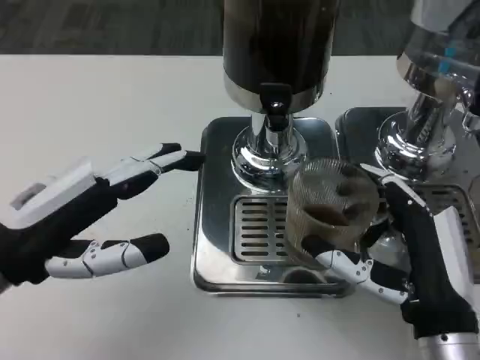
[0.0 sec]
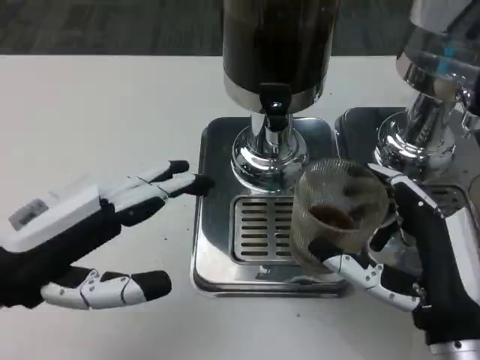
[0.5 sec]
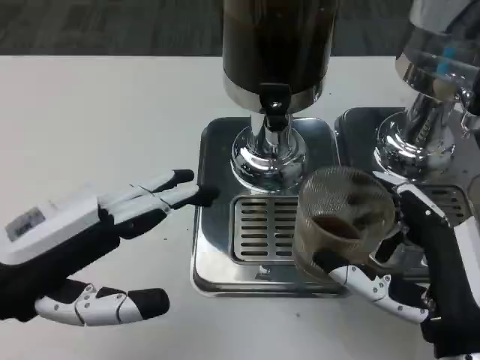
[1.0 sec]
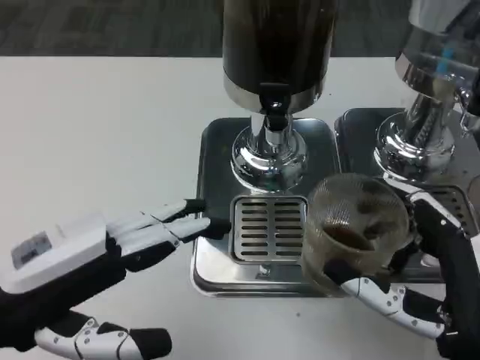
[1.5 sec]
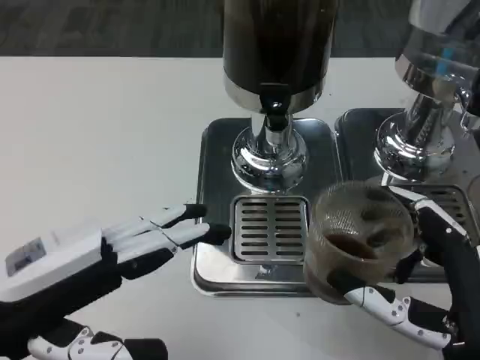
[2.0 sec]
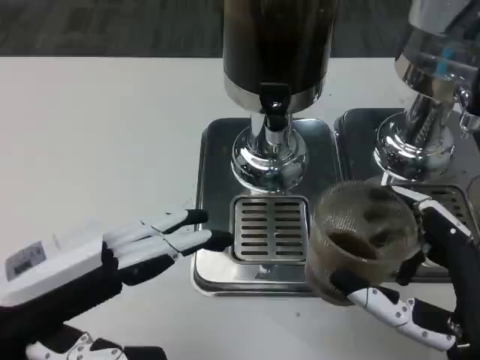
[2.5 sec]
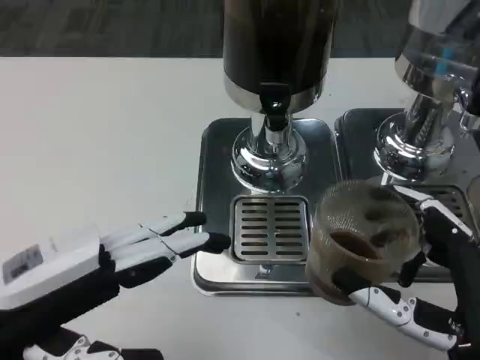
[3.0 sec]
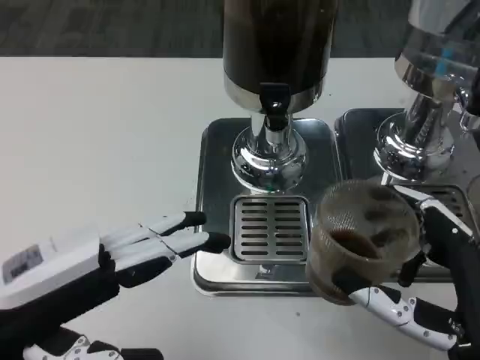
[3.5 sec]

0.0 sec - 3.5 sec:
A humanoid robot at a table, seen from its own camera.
Task of the whole recording: Grasp the cup under the faucet to collect the drink, then remove the cup.
0.0 sec - 2.0 sec: The right hand changes place by approximately 5 cm.
2.0 sec - 3.5 sec: The two hands keep their place.

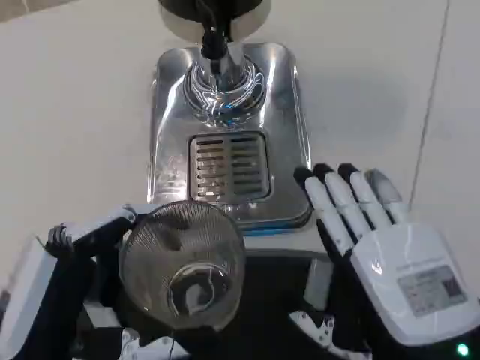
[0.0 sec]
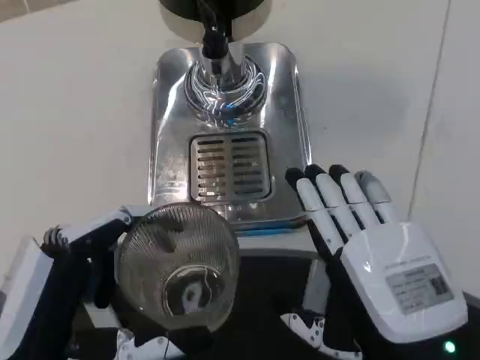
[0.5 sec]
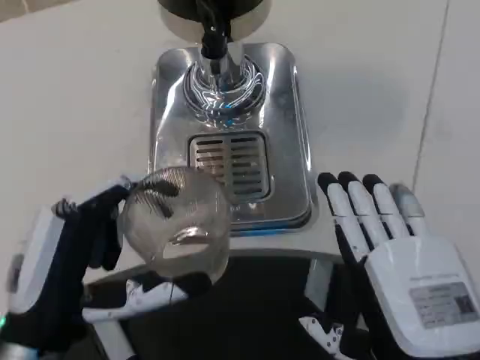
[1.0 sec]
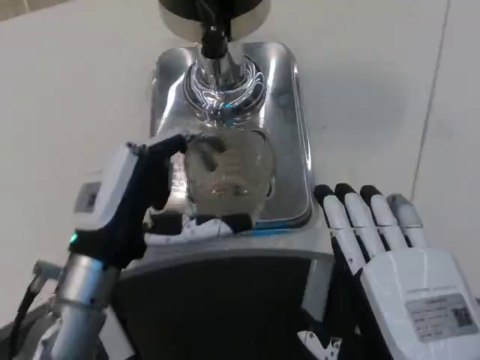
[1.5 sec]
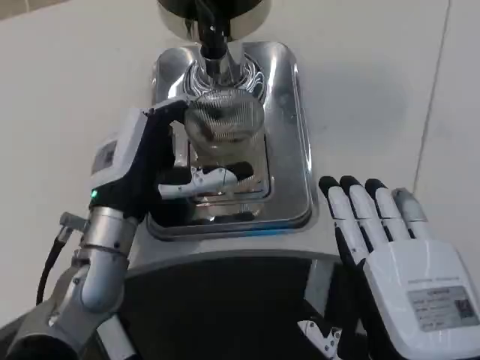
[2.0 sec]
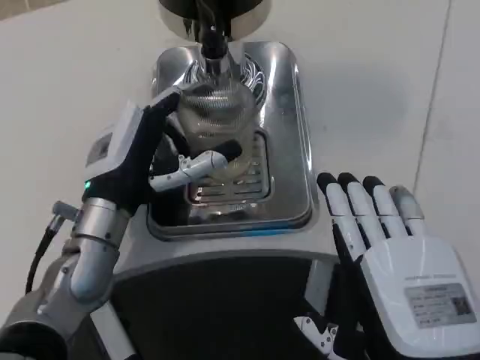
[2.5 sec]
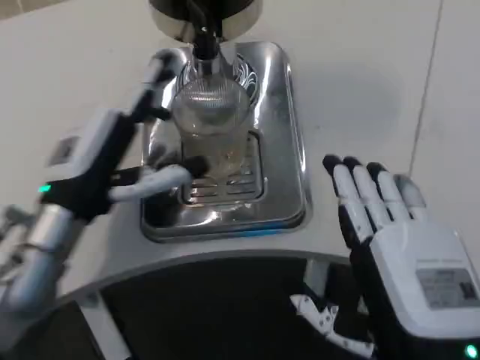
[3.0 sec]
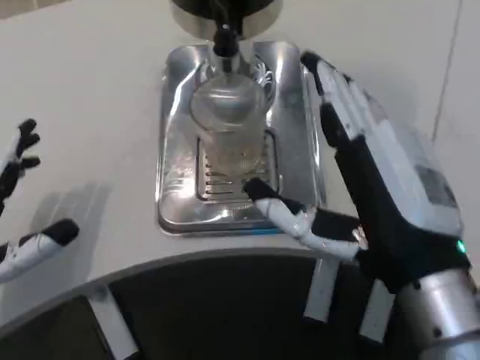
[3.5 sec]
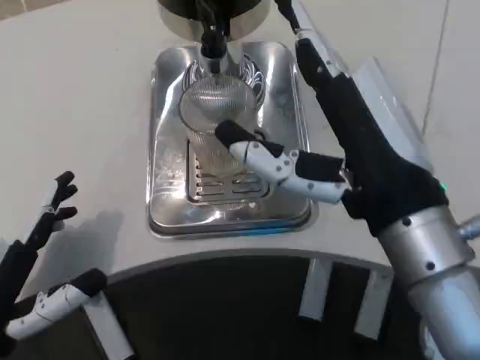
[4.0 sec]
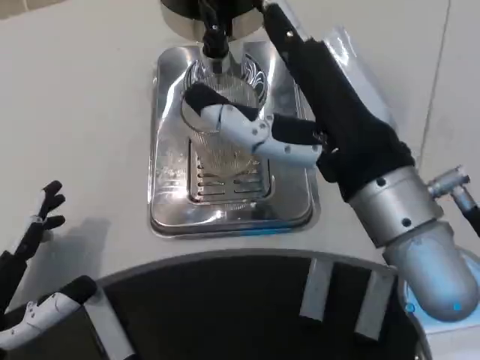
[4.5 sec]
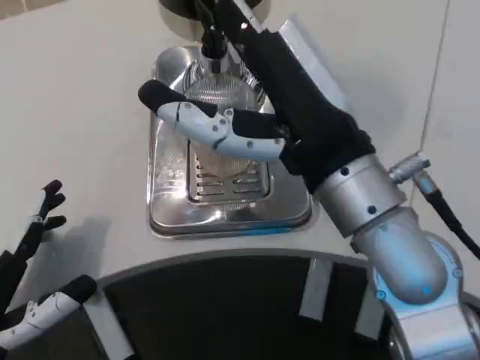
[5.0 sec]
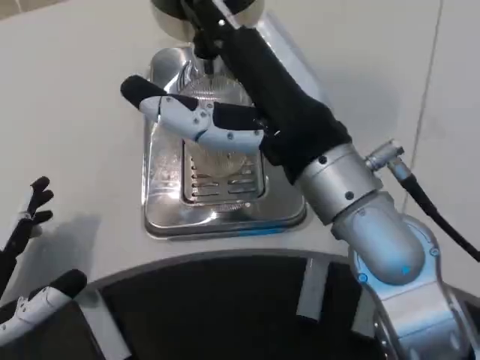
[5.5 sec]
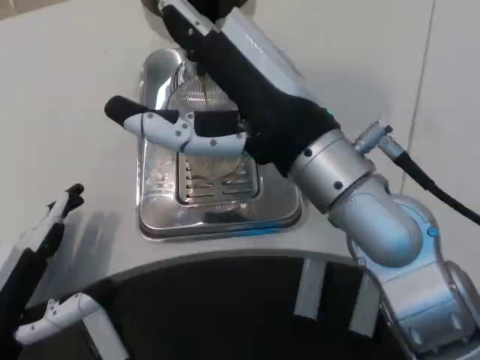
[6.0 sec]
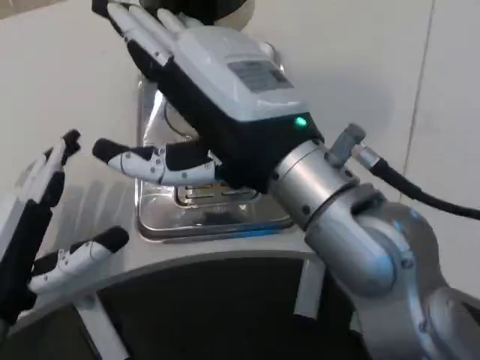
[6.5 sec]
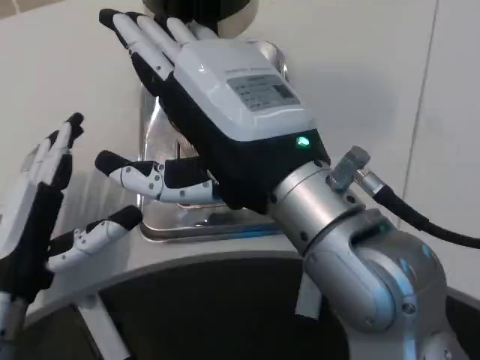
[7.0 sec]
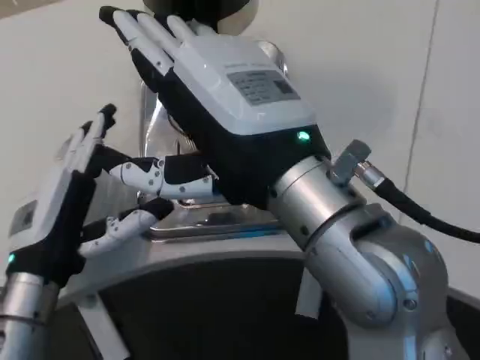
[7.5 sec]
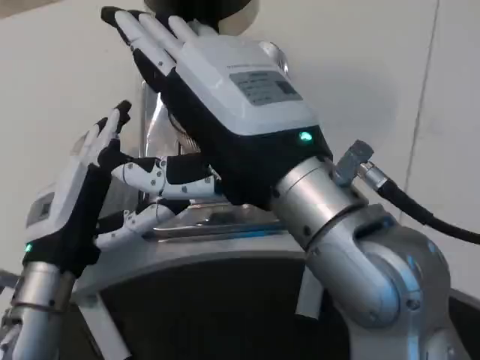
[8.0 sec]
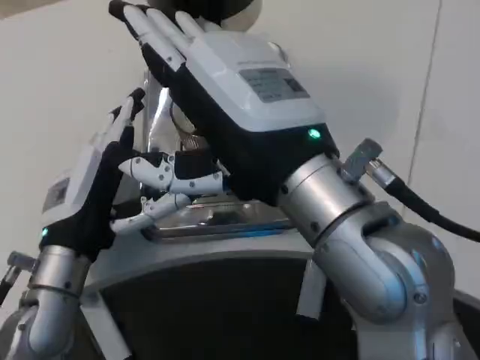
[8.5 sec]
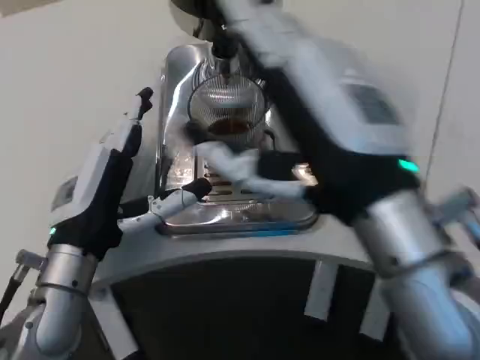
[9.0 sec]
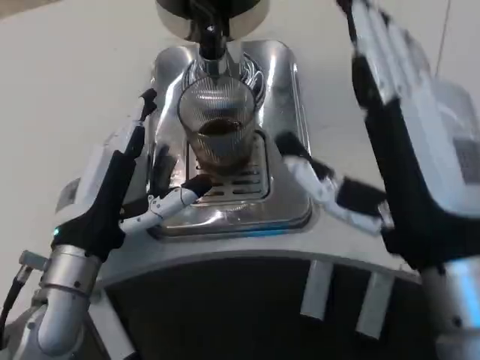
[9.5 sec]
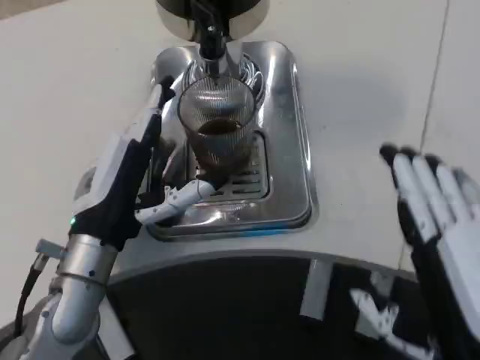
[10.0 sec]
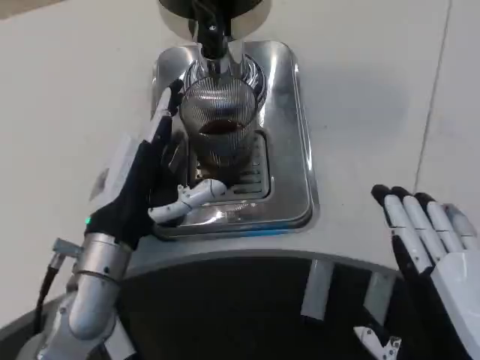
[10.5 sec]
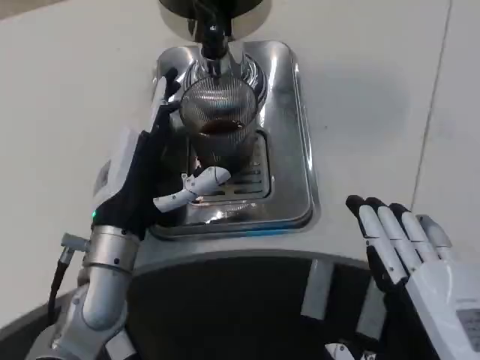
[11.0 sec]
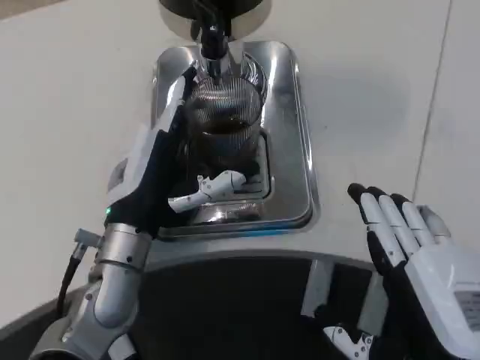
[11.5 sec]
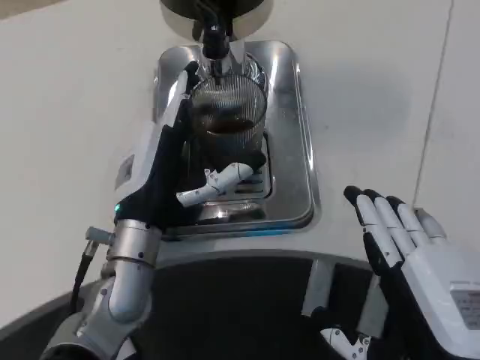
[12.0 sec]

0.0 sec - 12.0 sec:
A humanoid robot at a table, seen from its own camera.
Task of the whole recording: Grasp the cup under the faucet to collect the drink, then remove the cup.
0.0 sec - 2.0 sec: The left hand travels forward by approximately 15 cm.
2.0 sec - 4.0 sec: The right hand shifts approximately 10 cm upward and forward; the left hand goes about 20 cm backward and to the left.
4.0 sec - 6.0 sec: The right hand ends up some 5 cm from where it was.
6.0 sec - 8.0 sec: The right hand moves about 5 cm. Meanwhile the left hand travels forward and to the right by roughly 10 cm.
8.0 sec - 10.0 sec: The right hand goes some 20 cm downward, to the right and backward.
10.0 sec - 12.0 sec: The left hand moves roughly 5 cm.

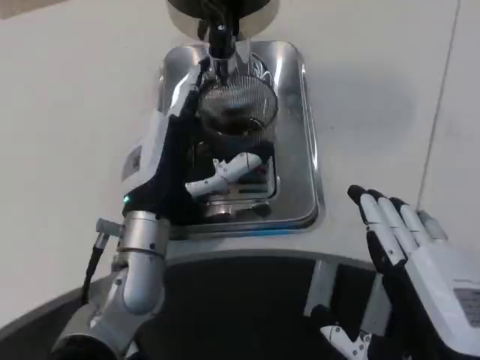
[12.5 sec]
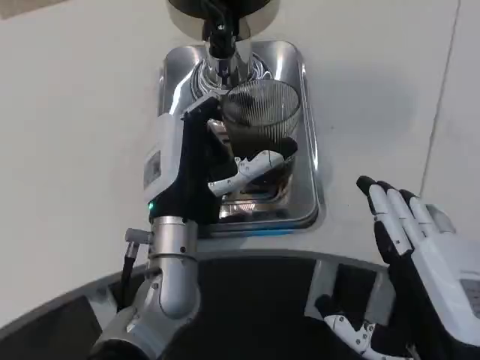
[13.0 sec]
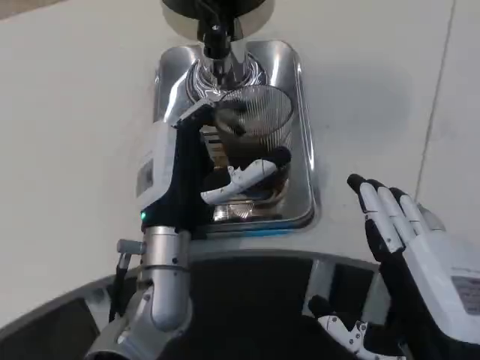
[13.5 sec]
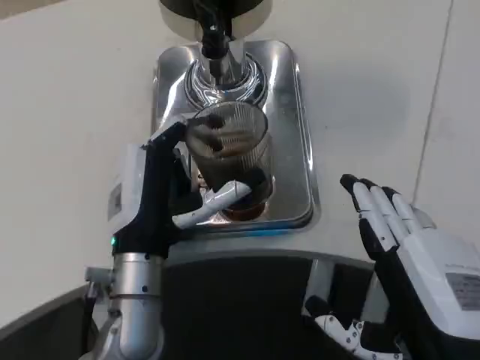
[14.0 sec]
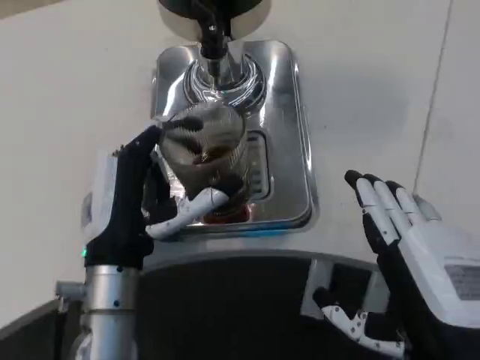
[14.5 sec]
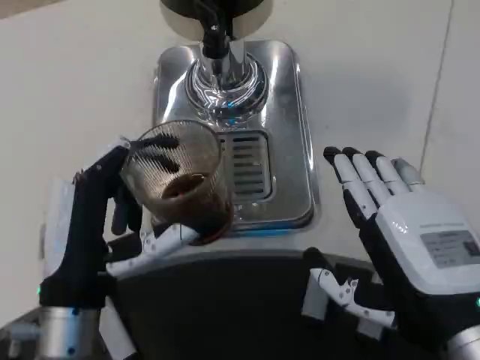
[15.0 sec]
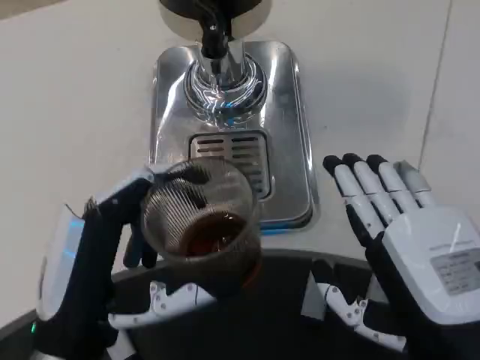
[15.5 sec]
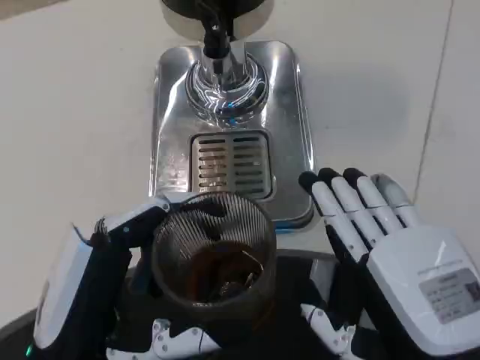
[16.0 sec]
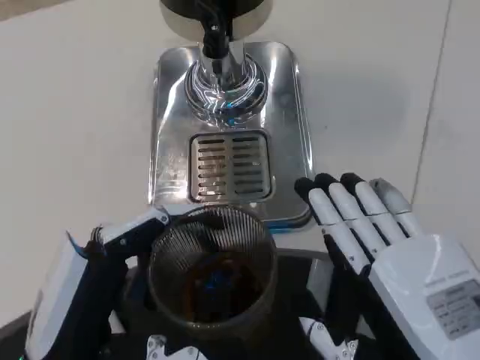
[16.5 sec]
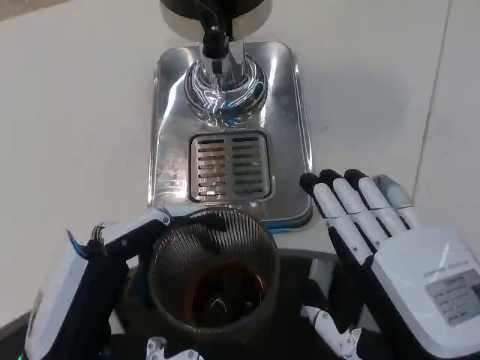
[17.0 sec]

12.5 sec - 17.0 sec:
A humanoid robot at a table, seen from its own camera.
Task of the whole recording: Grasp the cup under the faucet to collect the drink, then remove the cup.
12.5 sec - 14.5 sec: The left hand is displaced backward by approximately 5 cm.
14.5 sec - 17.0 sec: The left hand is displaced backward by approximately 10 cm.

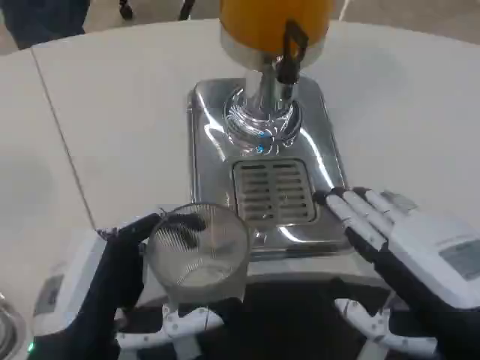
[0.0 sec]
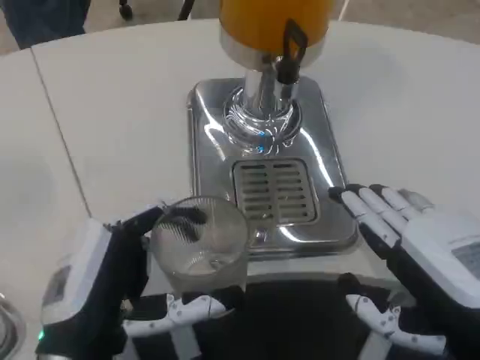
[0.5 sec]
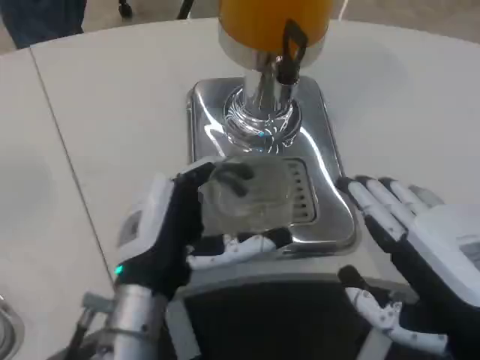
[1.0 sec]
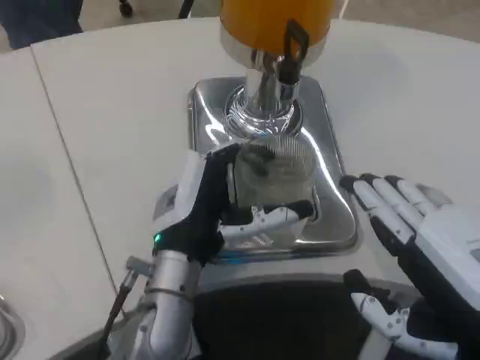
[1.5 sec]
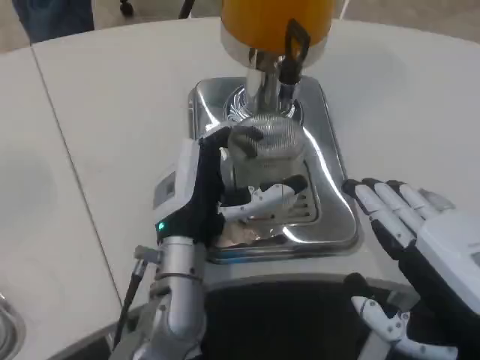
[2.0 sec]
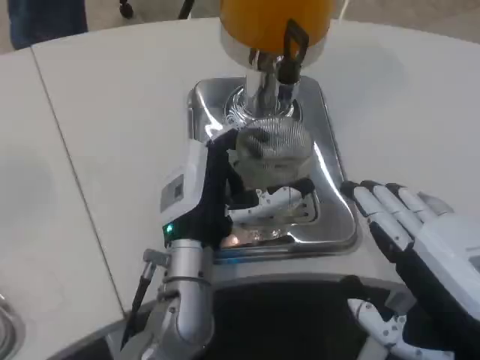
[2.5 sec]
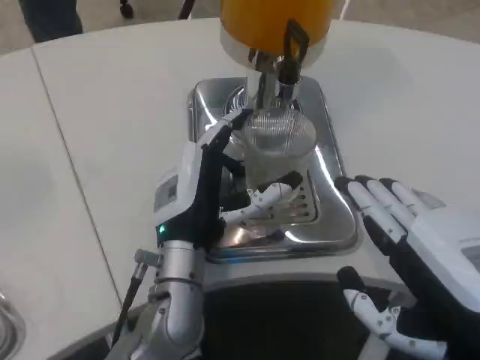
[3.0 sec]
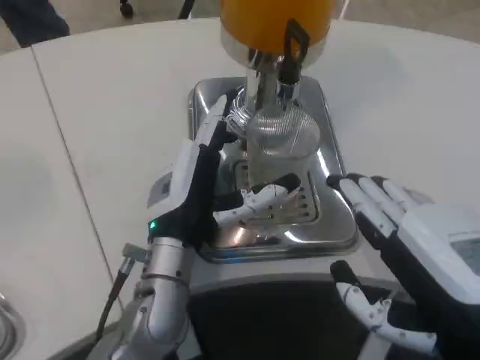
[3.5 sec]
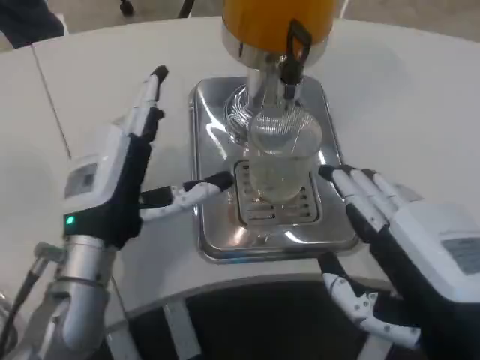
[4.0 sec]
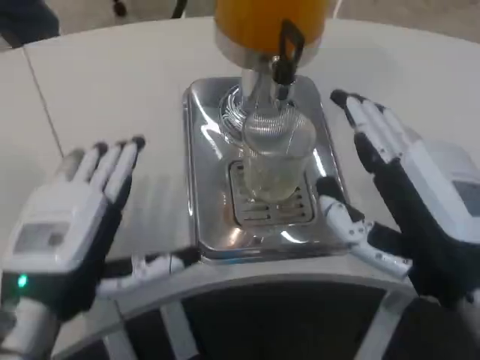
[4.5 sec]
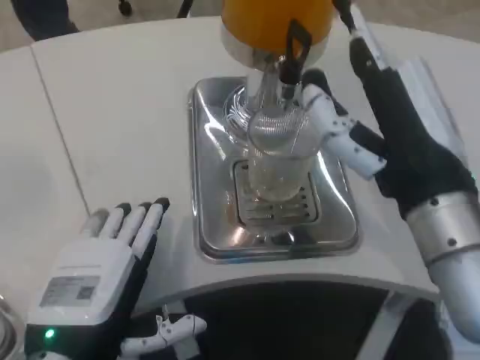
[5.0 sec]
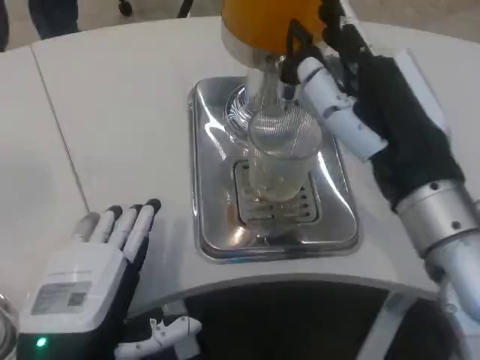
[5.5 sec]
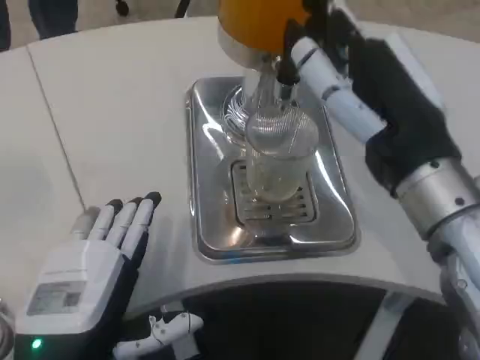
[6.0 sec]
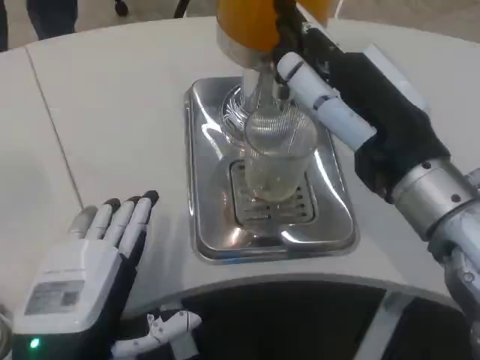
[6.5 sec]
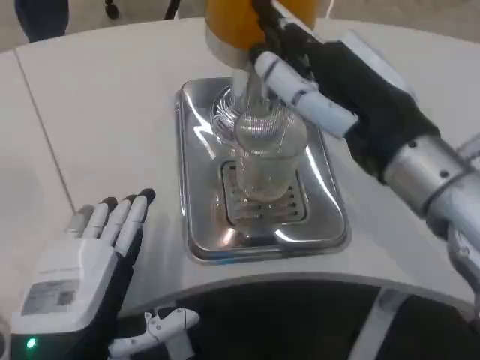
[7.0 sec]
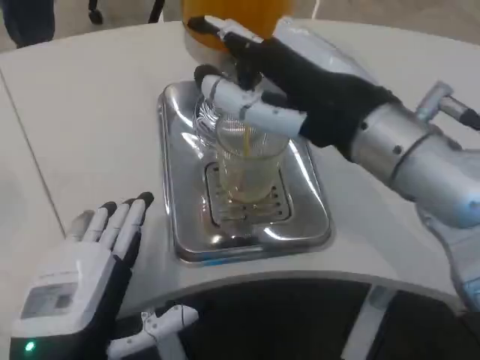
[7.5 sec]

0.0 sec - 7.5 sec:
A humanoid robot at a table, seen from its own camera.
Task of the whole recording: Grasp the cup under the faucet to collect the drink, then remove the cup.
0.0 sec - 2.0 sec: The left hand shifts approximately 15 cm forward and to the right.
2.0 sec - 4.0 sec: The left hand heads to the left, covering about 10 cm.
4.0 sec - 5.5 sec: The left hand travels backward by some 10 cm, while the right hand goes approximately 10 cm forward and upward.
5.5 sec - 7.5 sec: The right hand goes about 5 cm upward.
